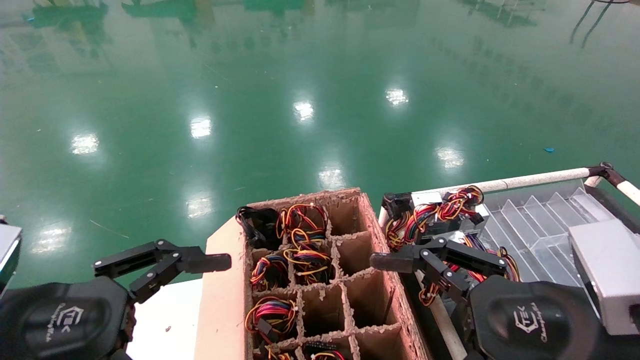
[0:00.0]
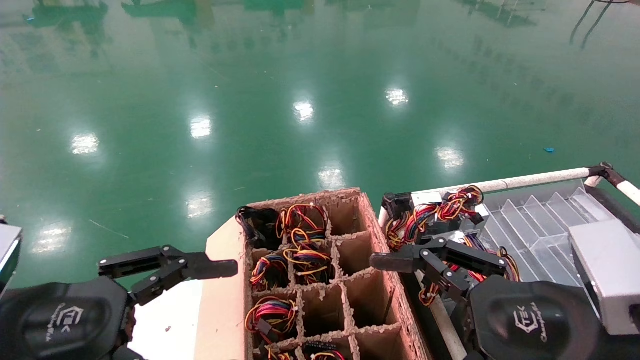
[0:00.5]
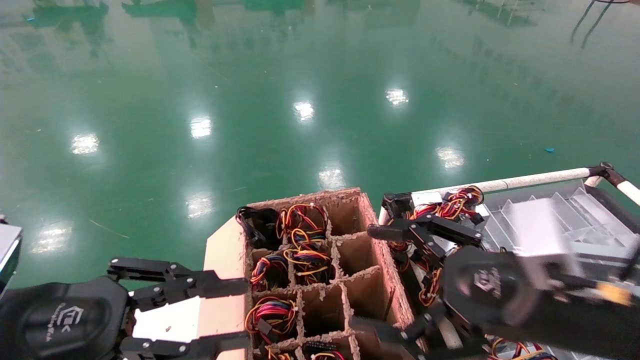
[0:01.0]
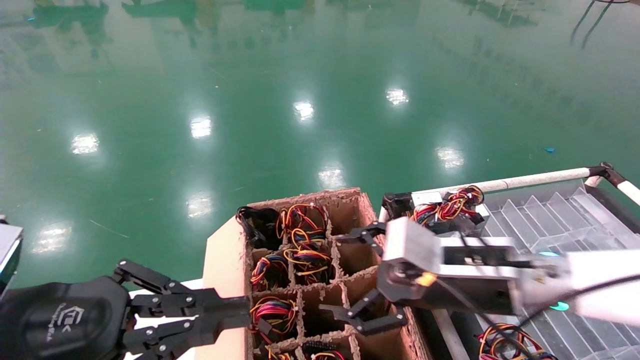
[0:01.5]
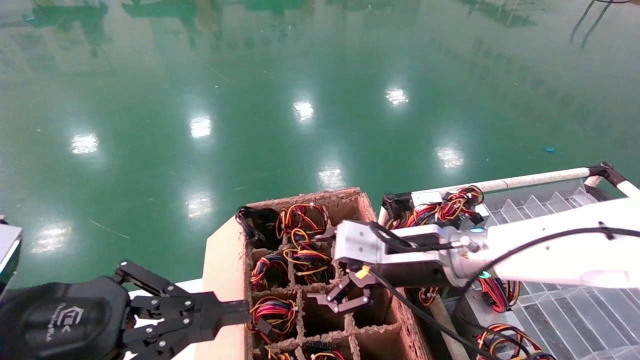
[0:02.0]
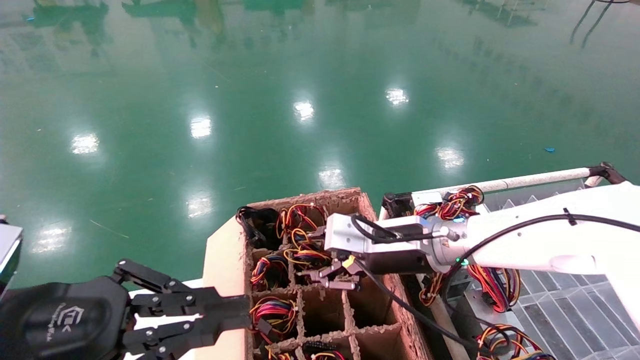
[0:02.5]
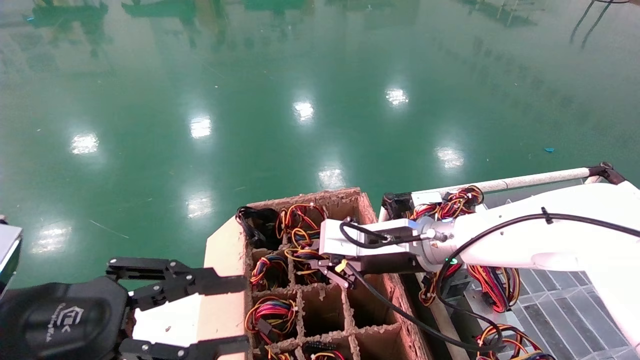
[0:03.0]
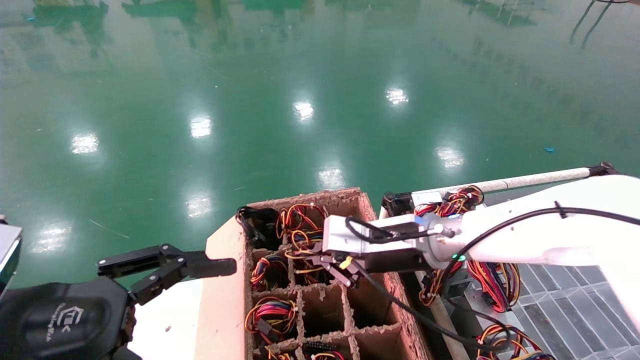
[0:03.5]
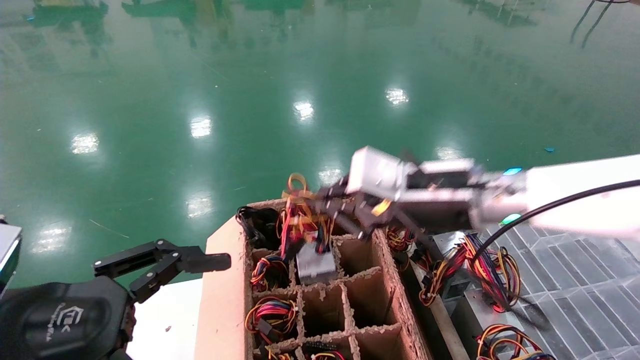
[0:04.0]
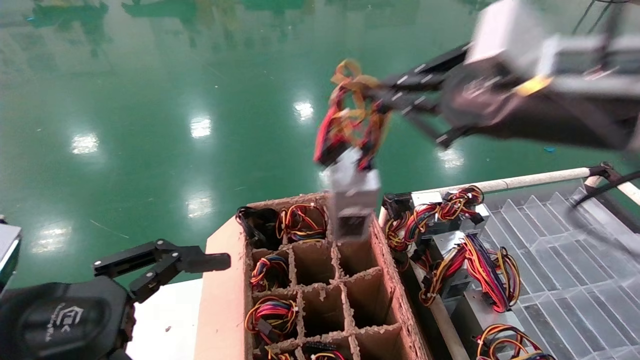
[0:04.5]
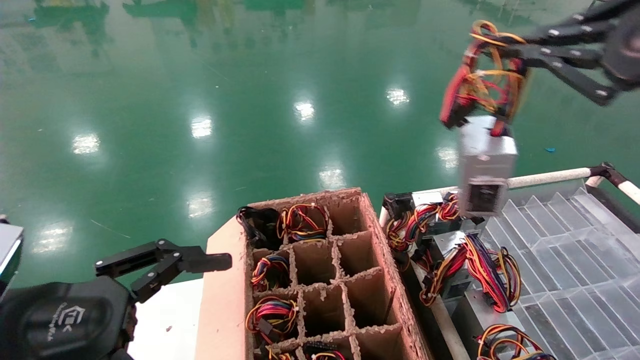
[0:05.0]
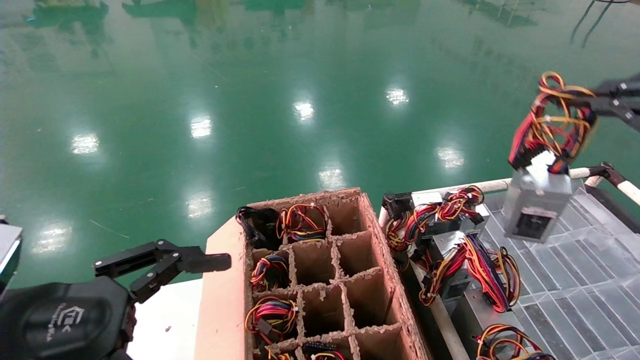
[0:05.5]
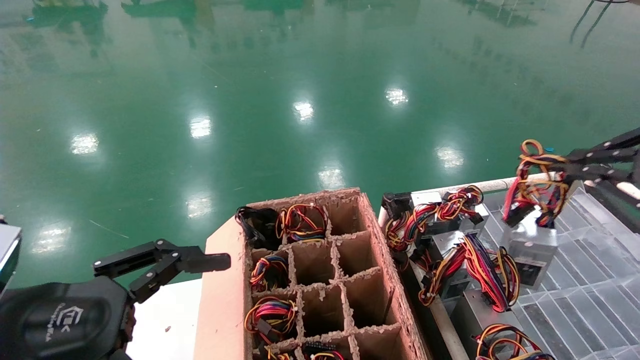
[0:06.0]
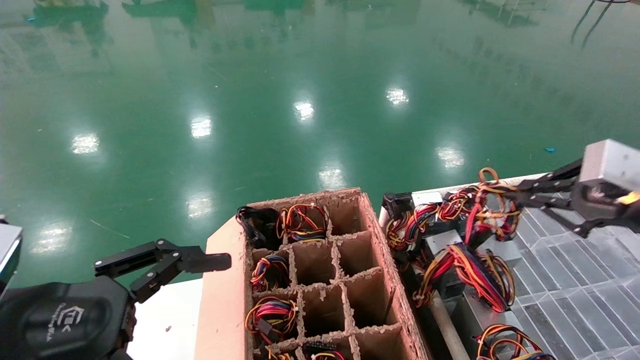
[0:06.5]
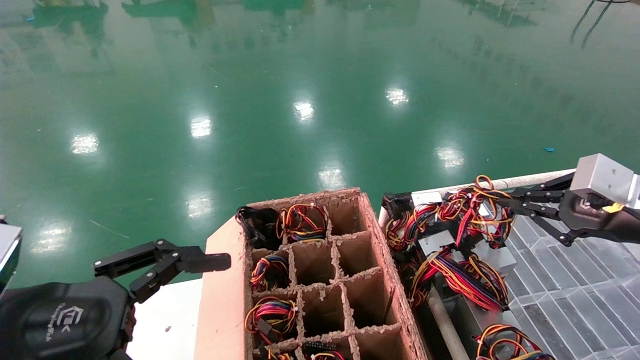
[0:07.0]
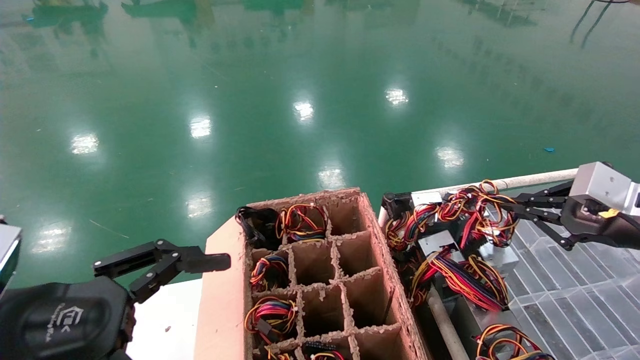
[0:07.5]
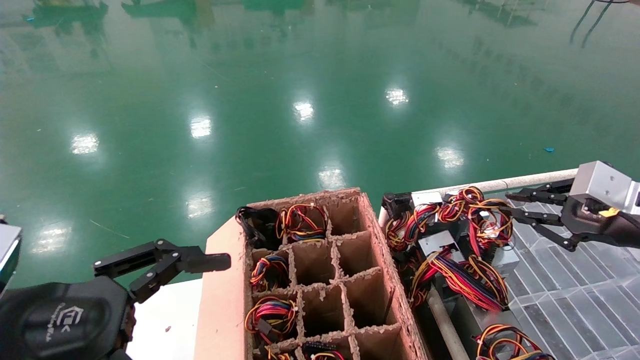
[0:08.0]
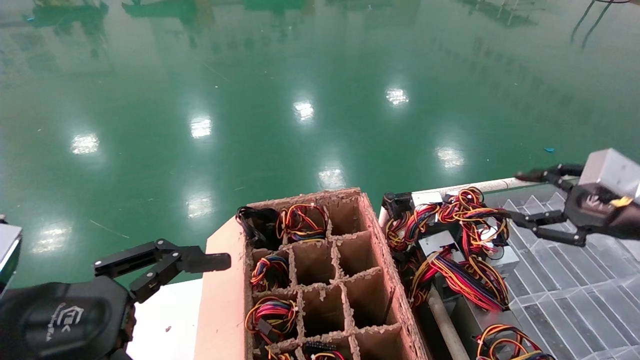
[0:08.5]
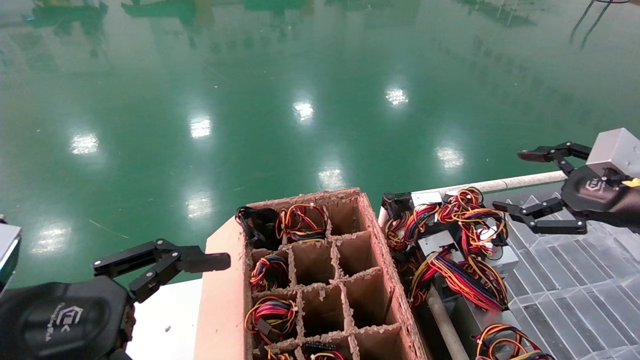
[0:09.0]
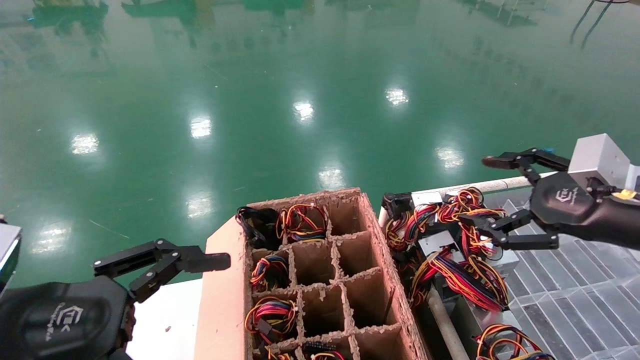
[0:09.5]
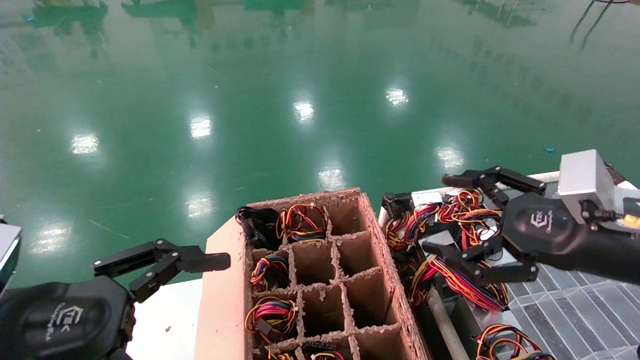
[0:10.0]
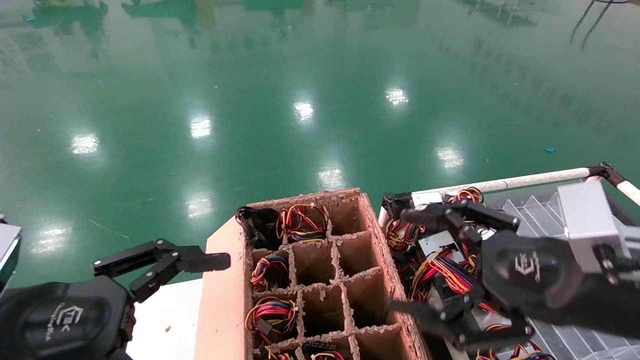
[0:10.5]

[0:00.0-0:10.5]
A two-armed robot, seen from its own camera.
Step, 0:01.0 to 0:03.0: Grab and lift the power supply from the large box.
Step, 0:03.5 to 0:08.0: Place the power supply on the operating table.
0:00.0 to 0:02.0: The right gripper shifts some 20 cm forward and to the left; the left gripper closes its fingers.
0:02.0 to 0:04.0: The right gripper goes roughly 10 cm upward, and closes up. Meanwhile the left gripper opens.
0:04.0 to 0:06.5: The right gripper shifts some 25 cm to the right.
0:06.5 to 0:08.5: The right gripper opens.
0:08.5 to 0:10.5: The right gripper travels to the left and backward by approximately 15 cm, and opens.

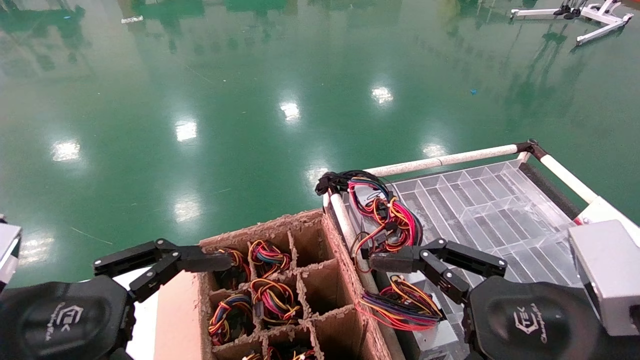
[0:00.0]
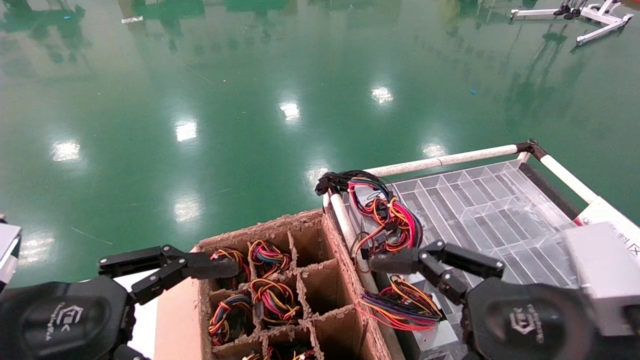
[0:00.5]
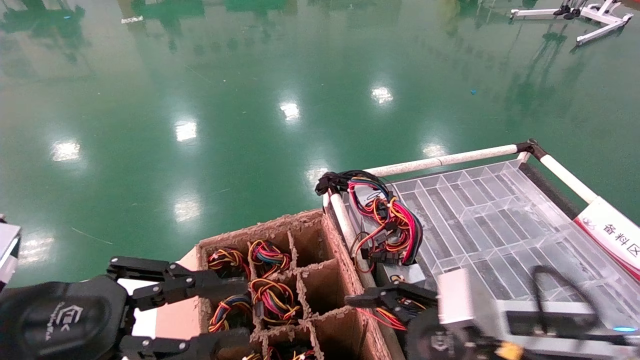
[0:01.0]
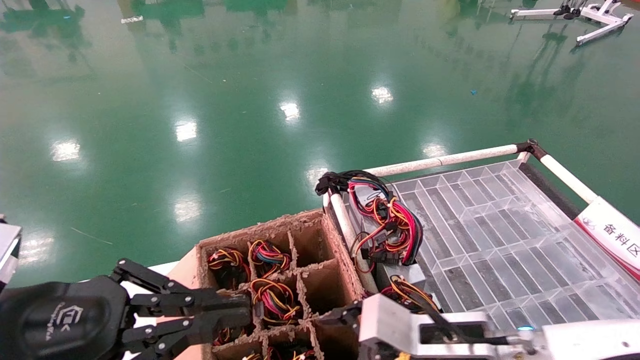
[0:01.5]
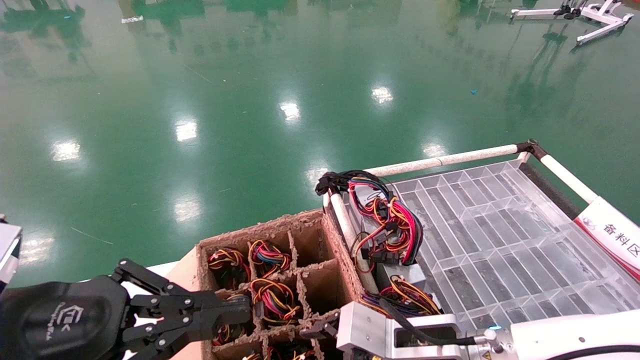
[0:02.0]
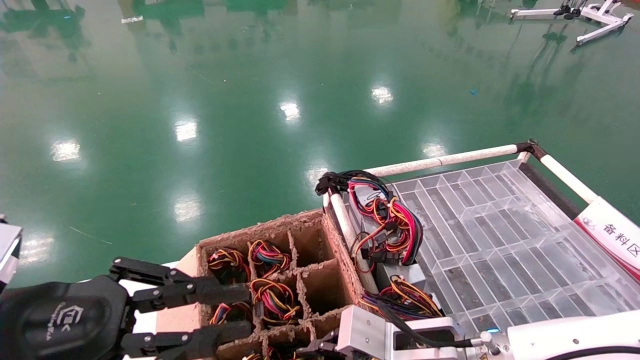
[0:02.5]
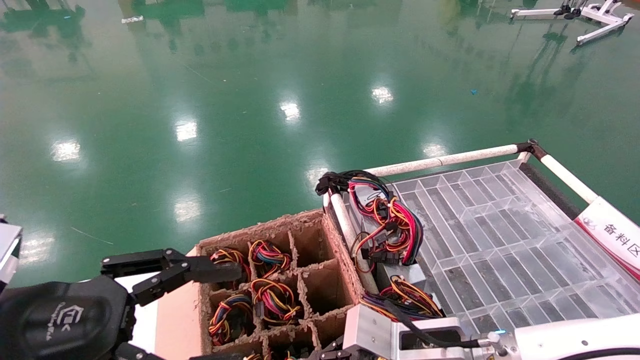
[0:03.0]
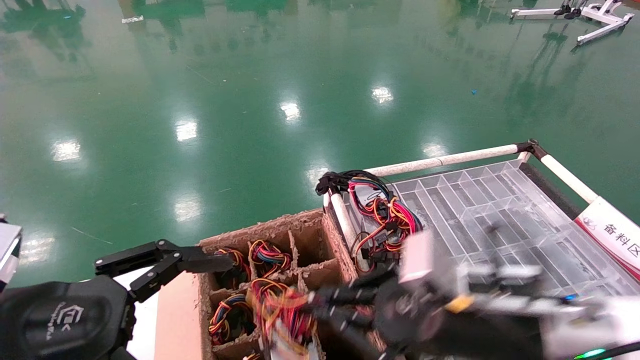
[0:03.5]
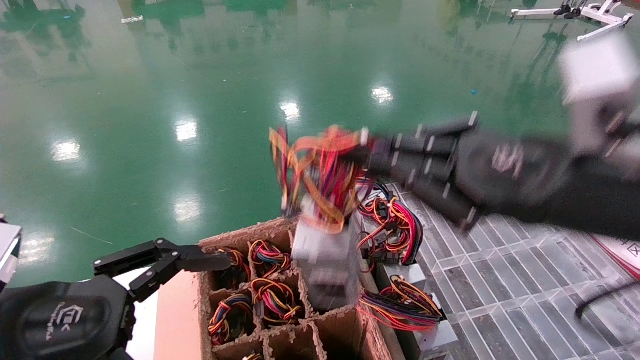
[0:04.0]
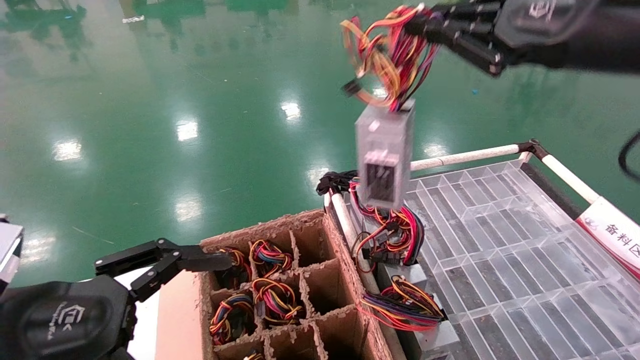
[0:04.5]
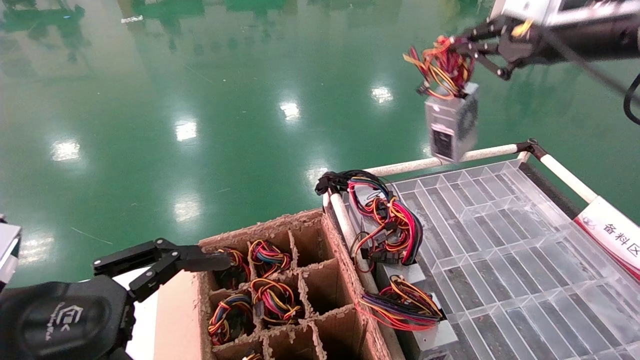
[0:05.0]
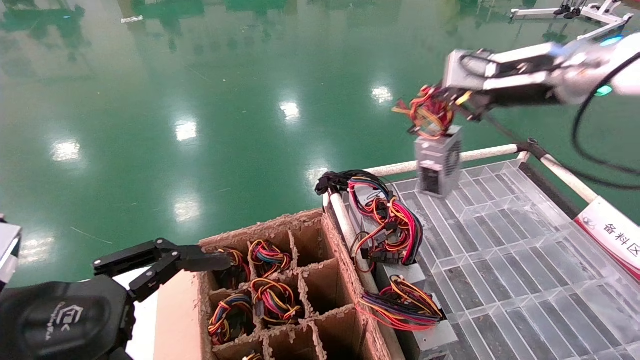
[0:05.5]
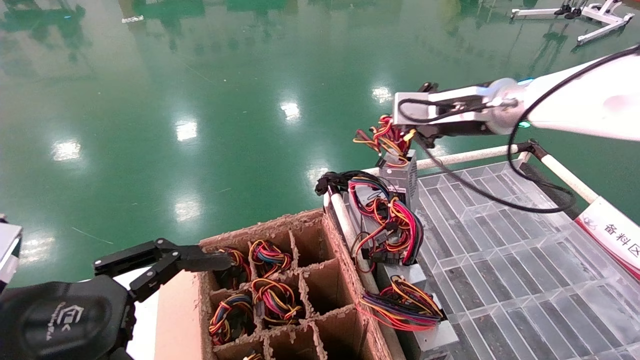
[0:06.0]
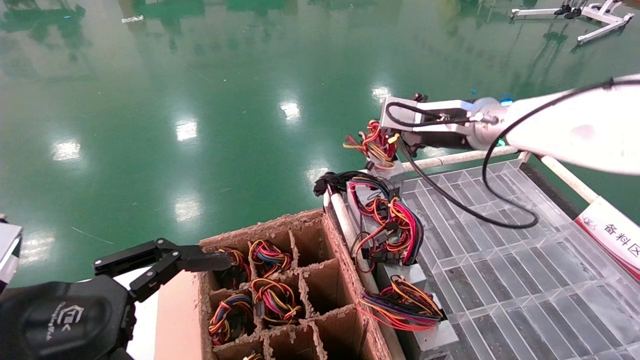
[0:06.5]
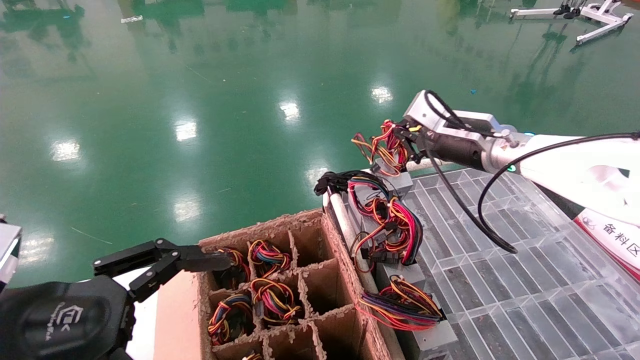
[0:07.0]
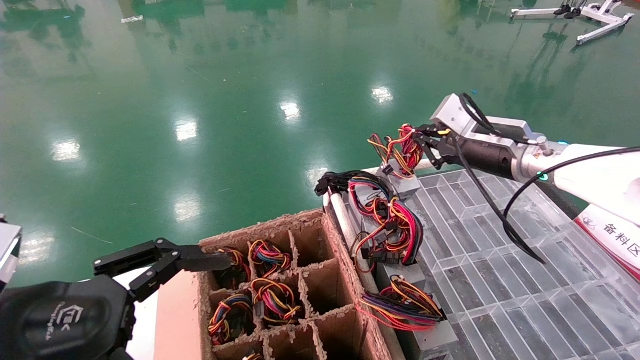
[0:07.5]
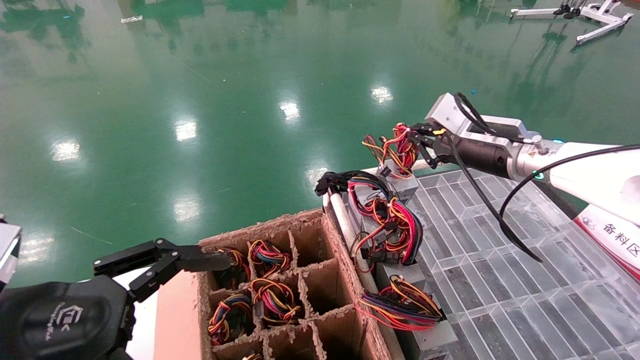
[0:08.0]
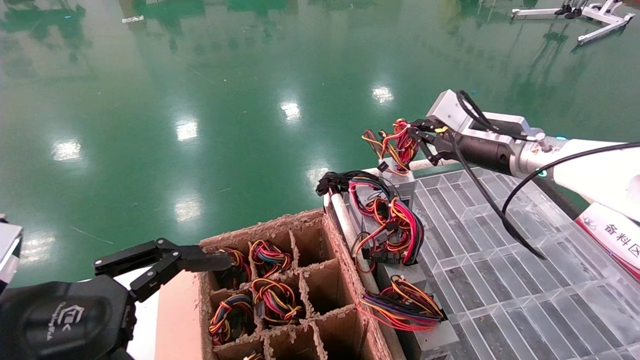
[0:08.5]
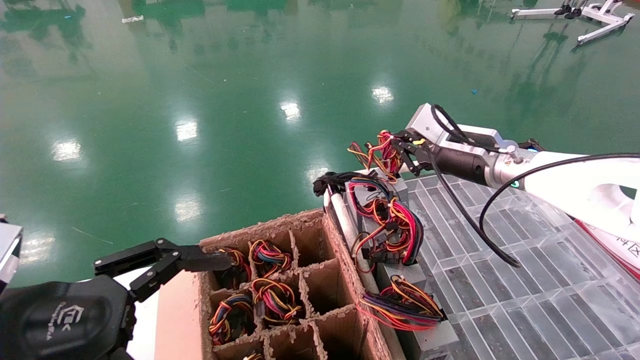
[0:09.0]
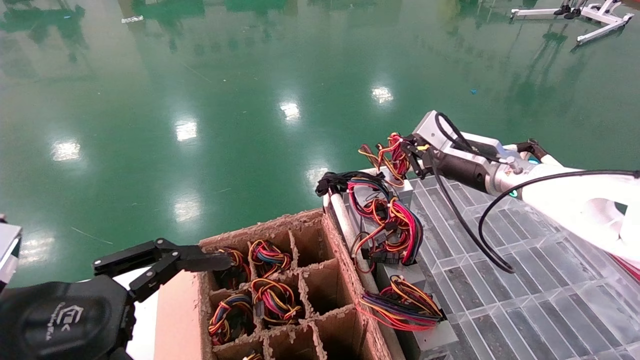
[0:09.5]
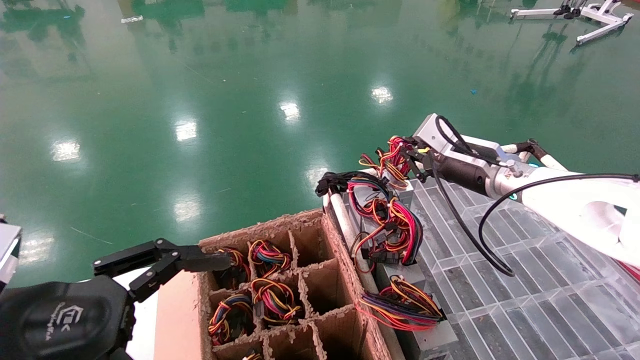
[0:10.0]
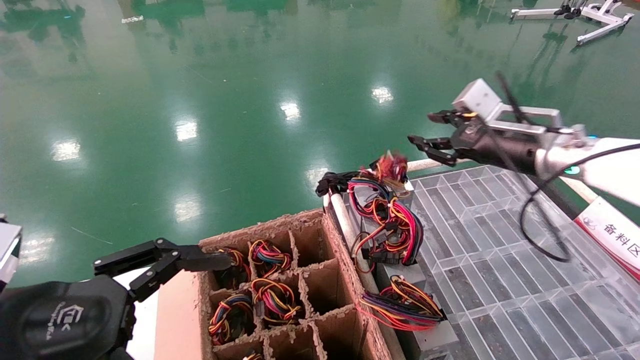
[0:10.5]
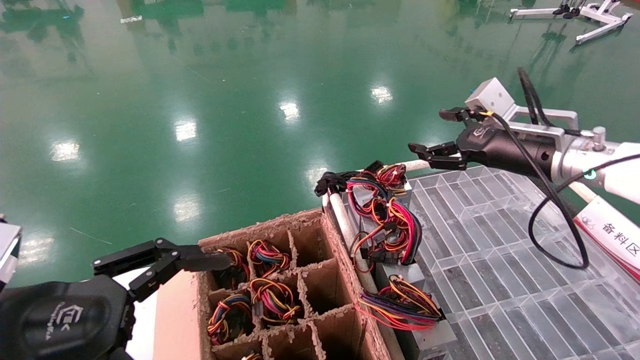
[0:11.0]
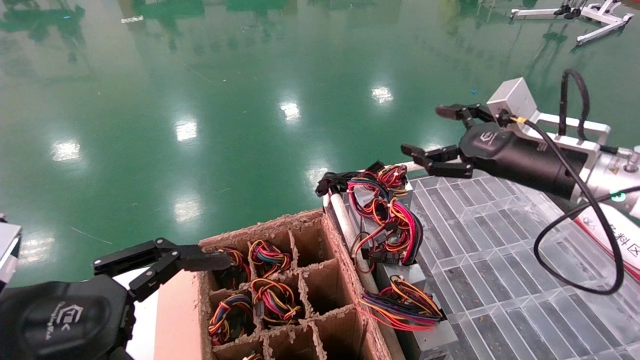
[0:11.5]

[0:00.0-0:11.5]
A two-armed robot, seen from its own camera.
Step, 0:01.0 to 0:03.0: Grab and lift the power supply from the large box.
Step, 0:03.5 to 0:10.0: Place the power supply on the operating table.
0:00.0 to 0:02.0: The left gripper closes. The right gripper is displaced forward, downward and to the left by roughly 20 cm.
0:02.0 to 0:04.0: The left gripper opens up, while the right gripper travels upward and to the right by about 25 cm, and closes.
0:04.0 to 0:06.0: The right gripper shifts approximately 20 cm forward.
0:06.0 to 0:07.5: The right gripper travels downward and to the right by roughly 10 cm.
0:07.5 to 0:09.5: The grippers move only a little.
0:09.5 to 0:11.5: The right gripper shifts some 10 cm backward, and opens.
